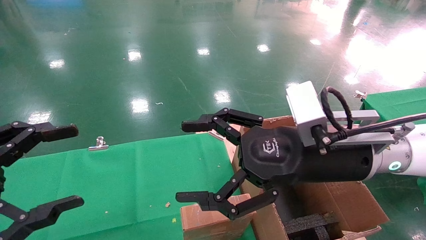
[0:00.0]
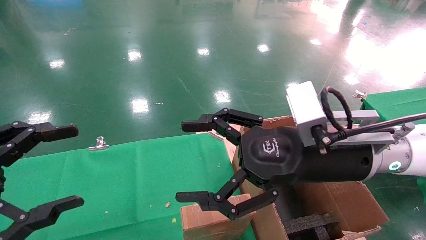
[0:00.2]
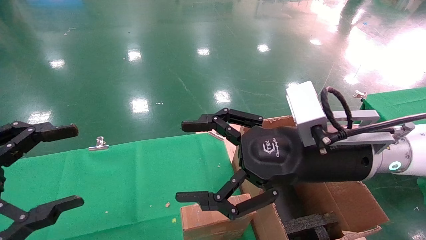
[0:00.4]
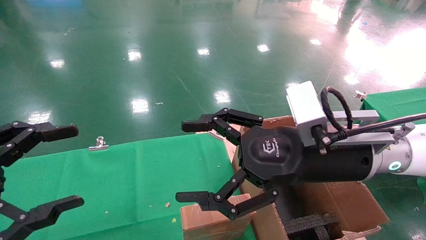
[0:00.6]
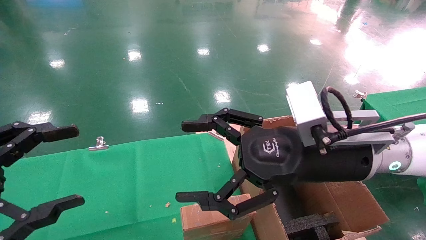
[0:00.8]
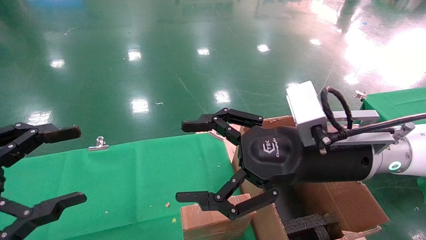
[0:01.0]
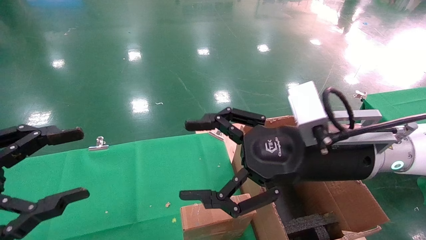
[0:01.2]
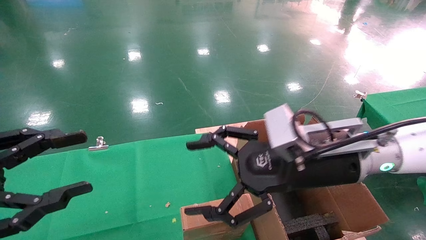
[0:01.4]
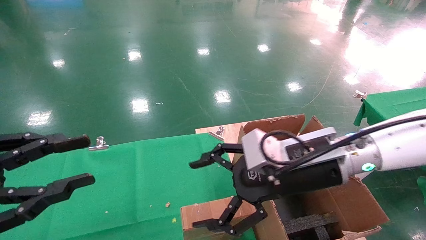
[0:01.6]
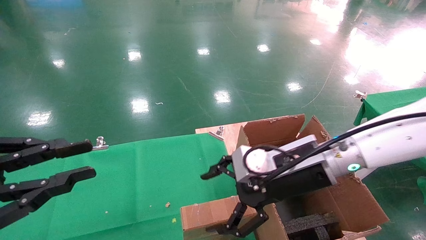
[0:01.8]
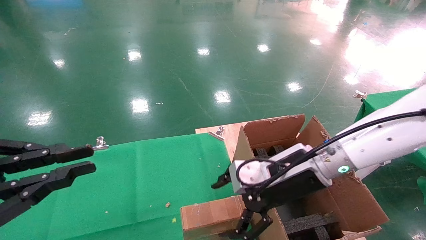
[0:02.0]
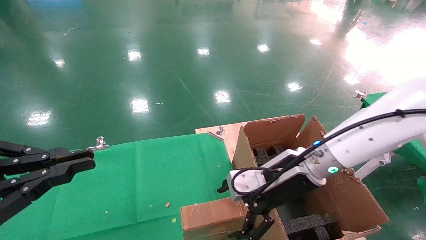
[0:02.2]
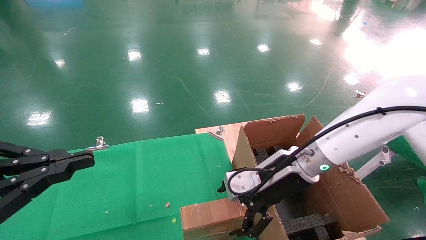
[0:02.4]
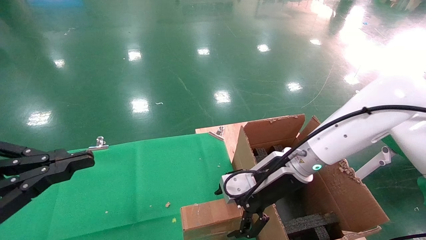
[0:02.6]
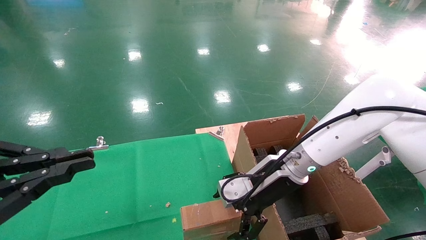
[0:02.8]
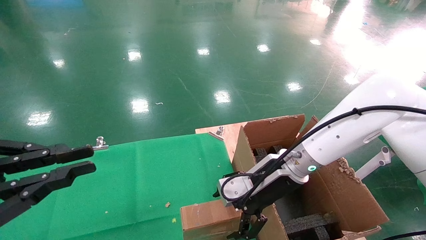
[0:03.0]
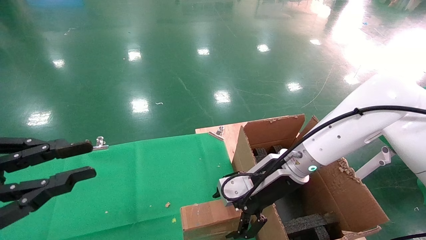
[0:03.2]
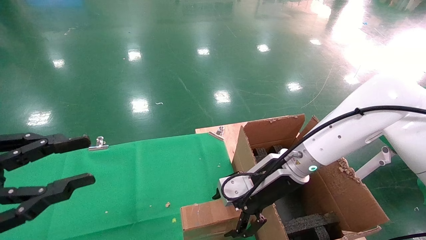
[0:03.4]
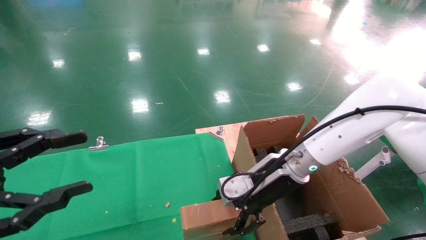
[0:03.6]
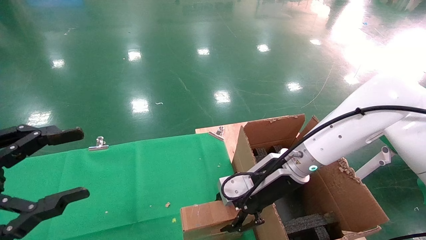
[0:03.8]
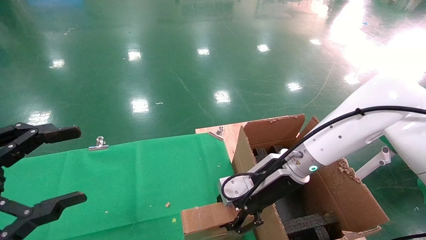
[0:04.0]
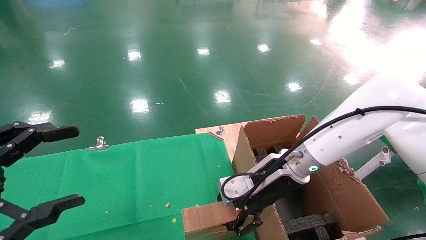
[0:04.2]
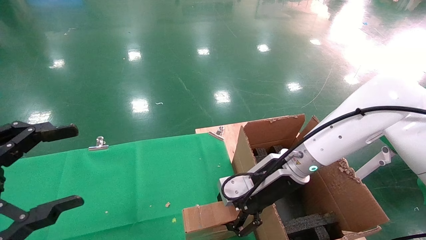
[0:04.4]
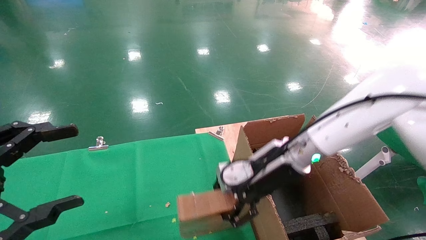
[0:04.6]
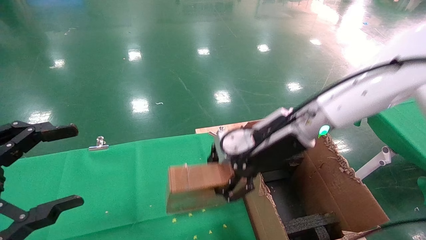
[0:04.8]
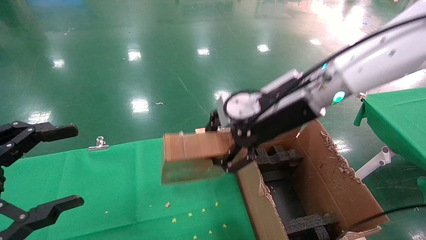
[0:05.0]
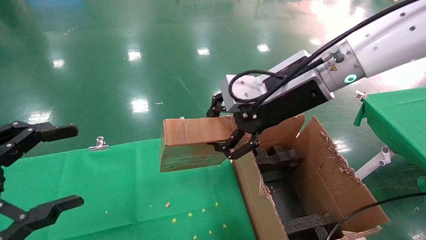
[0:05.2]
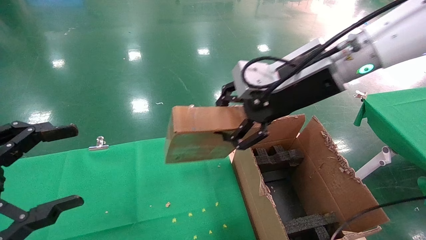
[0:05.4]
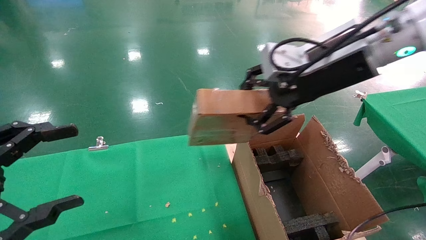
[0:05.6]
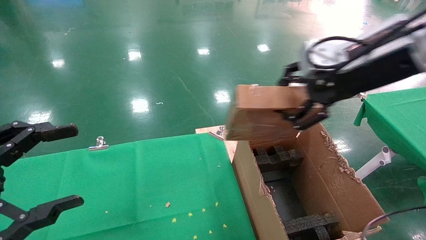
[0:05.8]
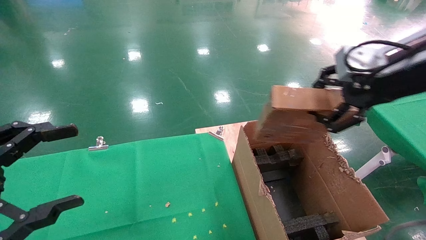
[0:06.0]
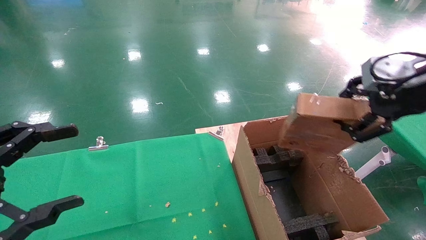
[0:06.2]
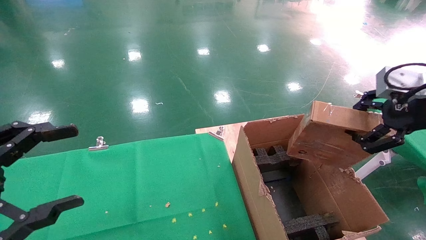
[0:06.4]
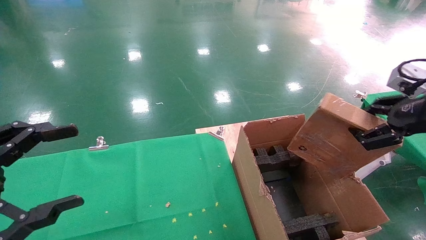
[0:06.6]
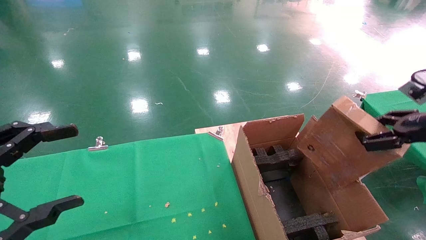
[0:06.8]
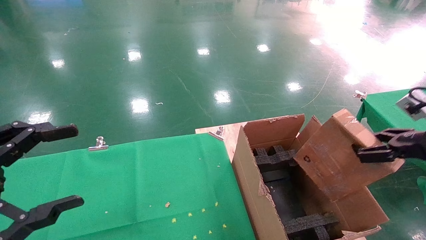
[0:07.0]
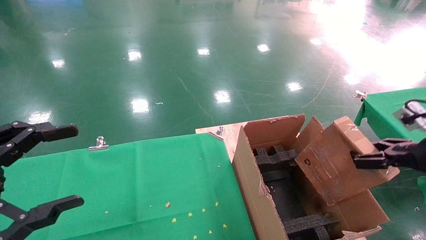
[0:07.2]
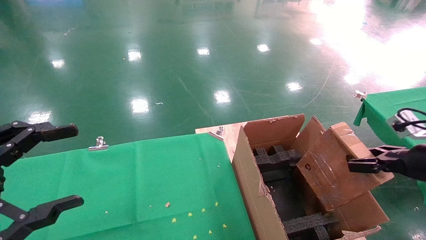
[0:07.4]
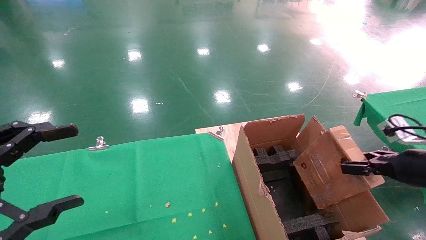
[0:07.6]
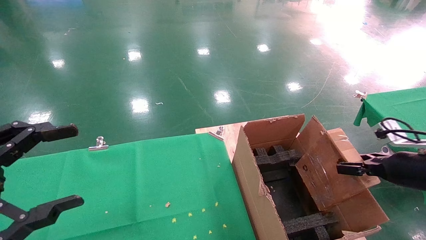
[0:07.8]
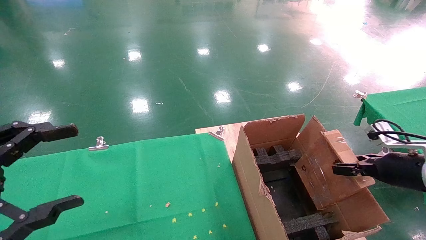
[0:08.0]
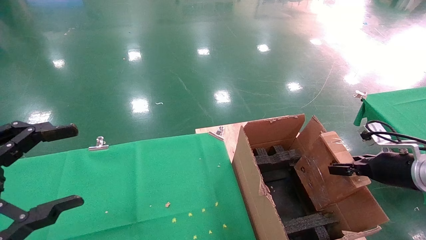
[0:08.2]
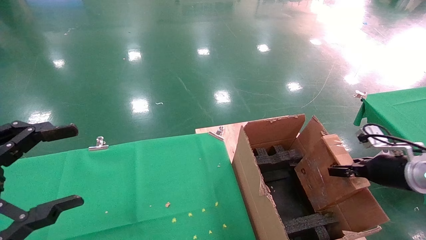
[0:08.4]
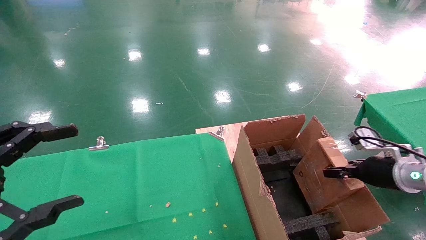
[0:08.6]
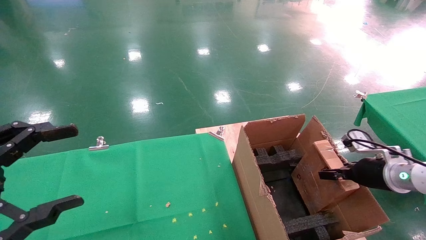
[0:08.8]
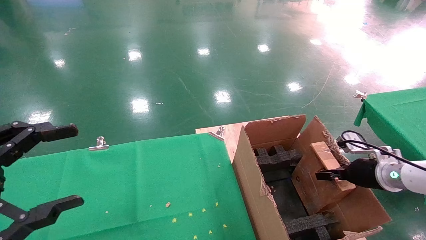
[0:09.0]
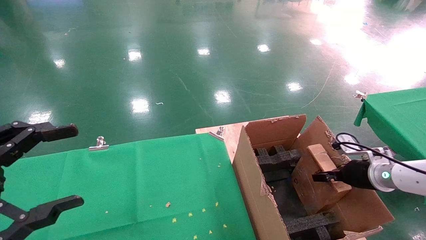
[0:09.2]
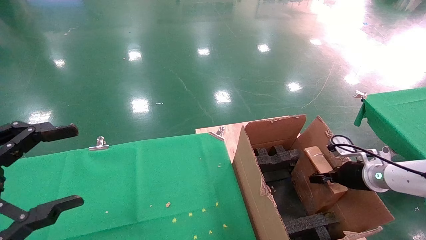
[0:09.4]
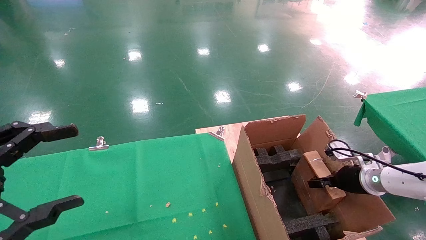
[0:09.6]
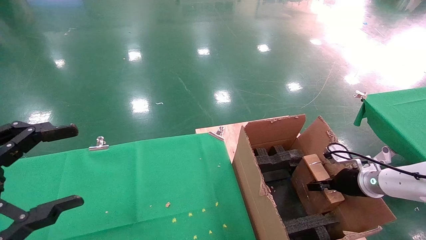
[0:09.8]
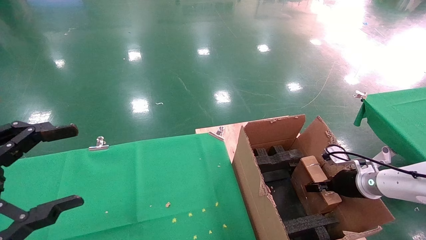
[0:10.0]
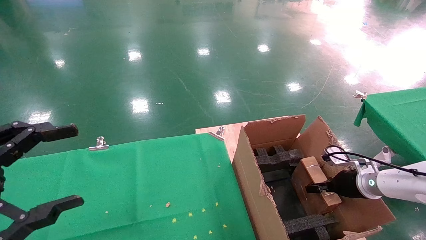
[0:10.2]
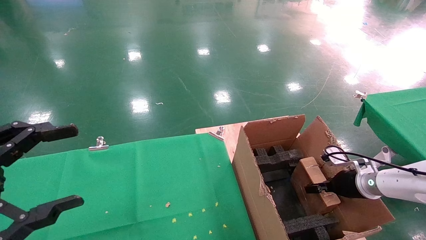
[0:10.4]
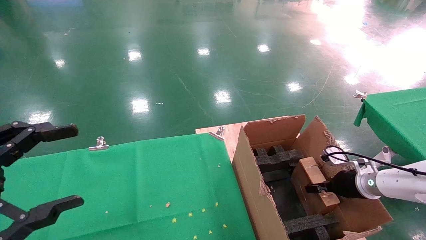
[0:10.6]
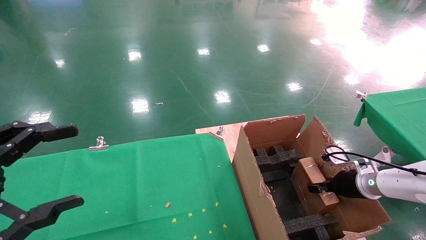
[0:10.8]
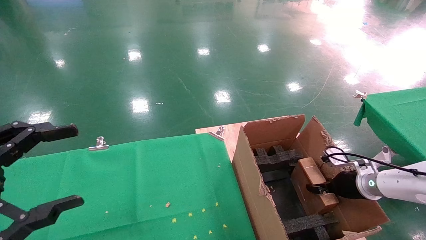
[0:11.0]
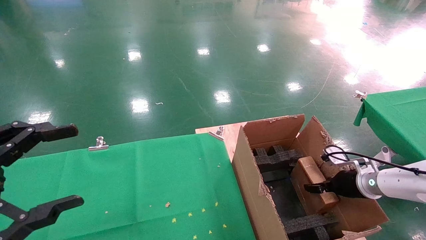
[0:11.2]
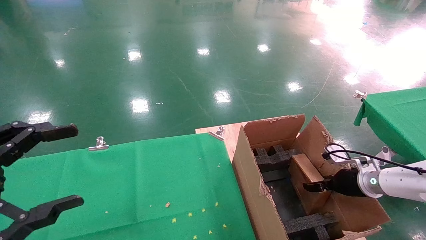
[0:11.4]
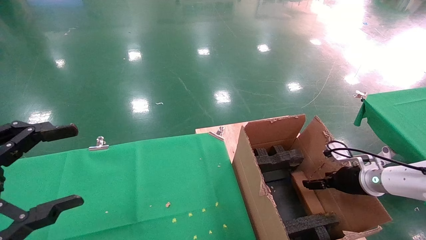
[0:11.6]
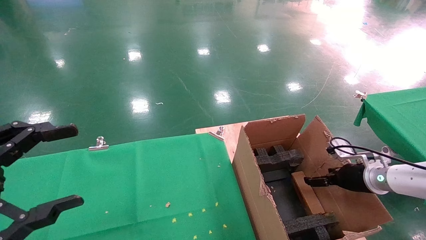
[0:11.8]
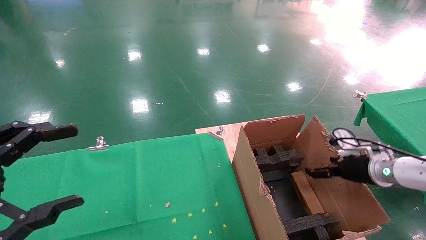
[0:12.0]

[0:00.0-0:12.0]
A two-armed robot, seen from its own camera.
Task of the whole recording: using a robotic arm to pick up a cardboard box and palace it the carton.
Step, 0:01.6 to 0:04.0: Pick up the mouse and the power cord paper box.
0:00.0 to 0:01.6: The left gripper closes its fingers.
0:01.6 to 0:03.0: The right gripper travels forward and downward by about 10 cm. Meanwhile the left gripper closes up.
0:03.0 to 0:04.4: The left gripper opens, while the right gripper closes up.
0:04.4 to 0:06.0: The right gripper heads to the right, upward and backward, covering about 30 cm.
0:06.0 to 0:07.6: The right gripper travels downward and to the right by approximately 20 cm.
0:07.6 to 0:09.0: The right gripper heads forward and downward, covering approximately 10 cm.
0:09.0 to 0:10.4: The right gripper is displaced downward by approximately 5 cm.
0:10.4 to 0:12.0: The right gripper is displaced upward by approximately 5 cm, and opens.

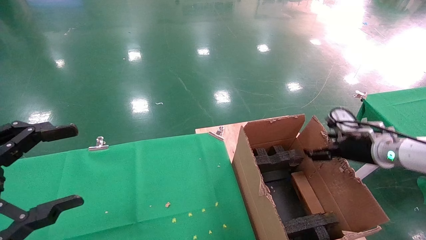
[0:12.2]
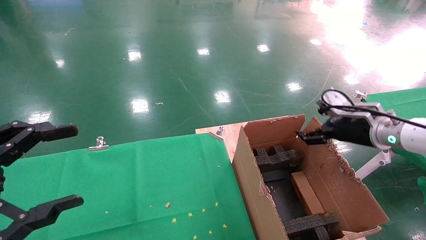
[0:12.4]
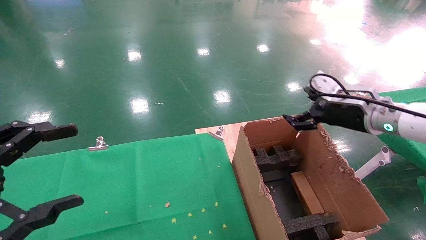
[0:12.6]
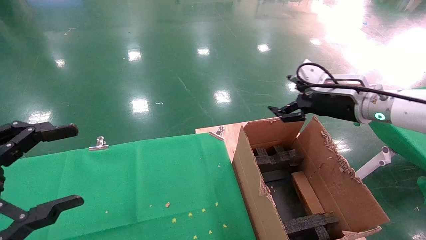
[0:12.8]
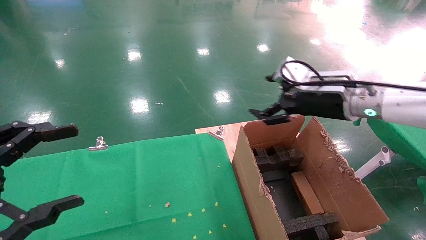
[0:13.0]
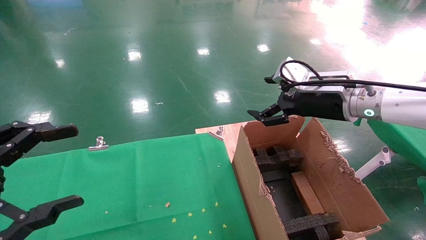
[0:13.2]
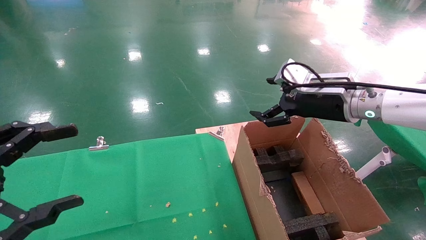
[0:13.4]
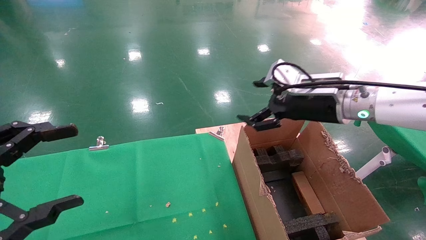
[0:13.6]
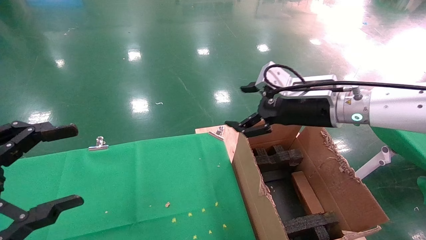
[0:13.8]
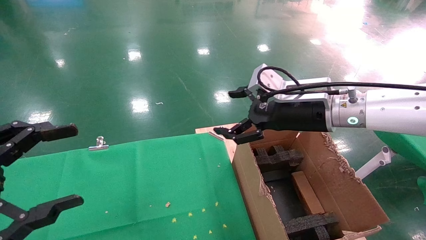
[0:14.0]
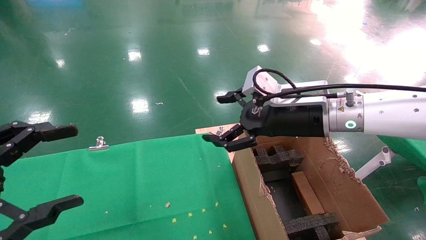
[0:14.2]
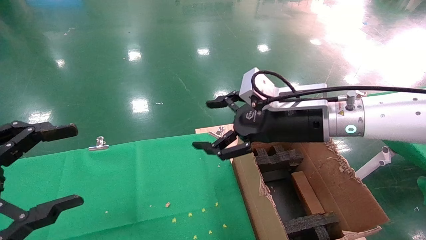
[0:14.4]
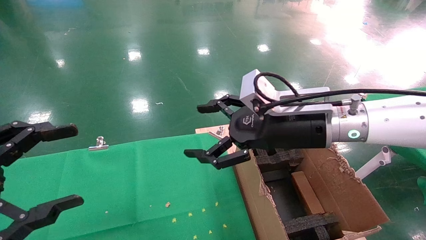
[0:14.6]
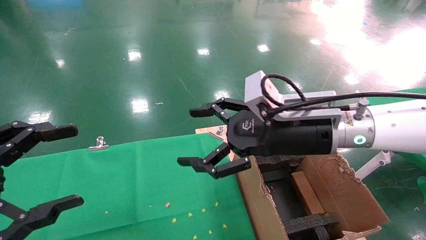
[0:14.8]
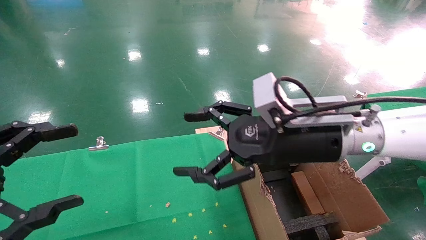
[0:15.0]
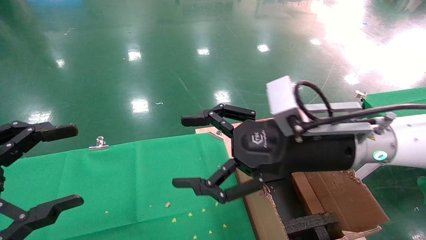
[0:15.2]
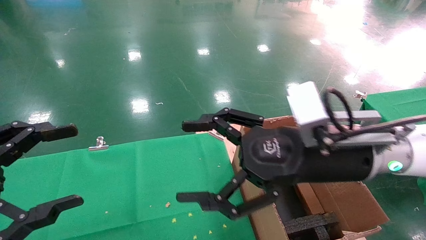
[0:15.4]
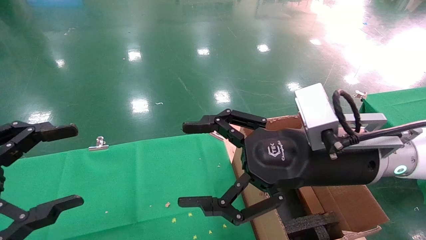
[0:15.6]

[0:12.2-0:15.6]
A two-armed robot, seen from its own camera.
Task of the whole recording: using a robotic arm to pick up a cardboard box and palace it the carton.
0:12.2 to 0:13.8: The right gripper goes about 20 cm to the left and upward.
0:13.8 to 0:15.6: The right gripper goes some 10 cm backward.

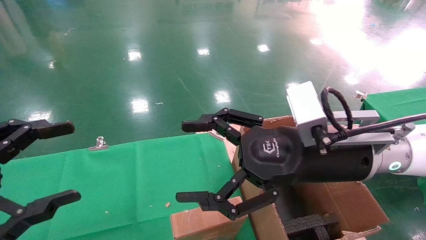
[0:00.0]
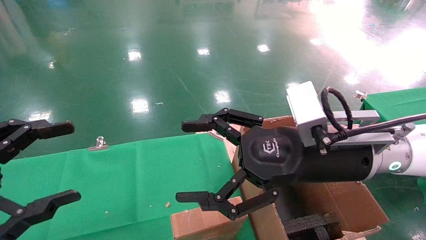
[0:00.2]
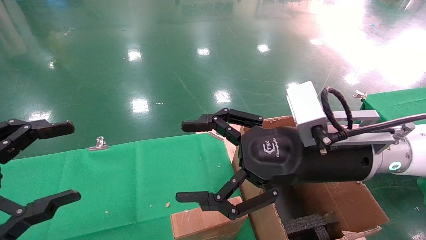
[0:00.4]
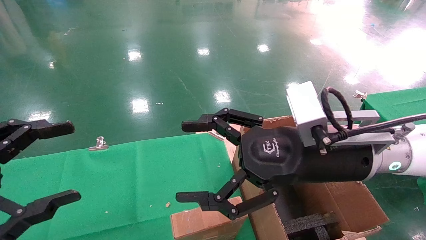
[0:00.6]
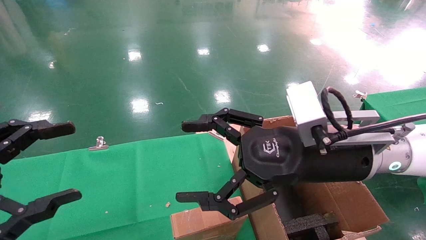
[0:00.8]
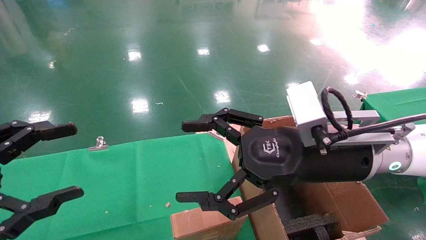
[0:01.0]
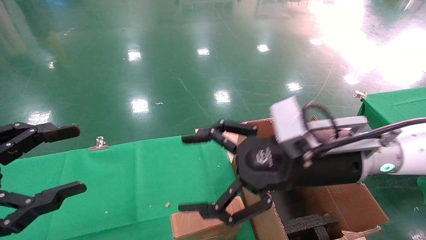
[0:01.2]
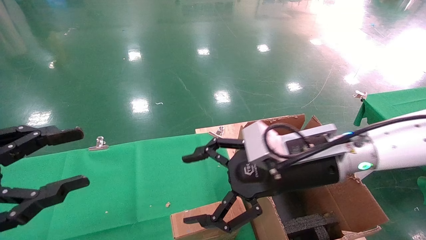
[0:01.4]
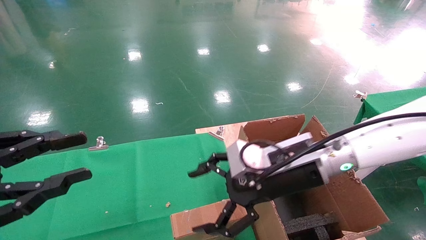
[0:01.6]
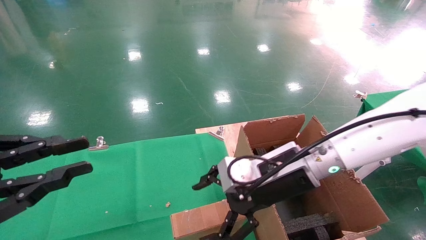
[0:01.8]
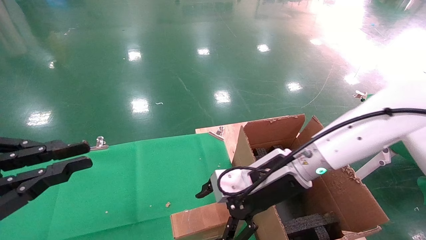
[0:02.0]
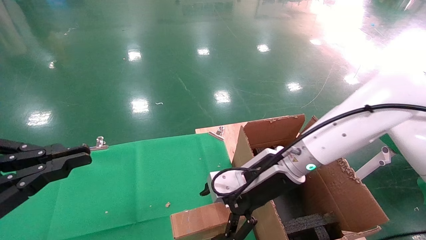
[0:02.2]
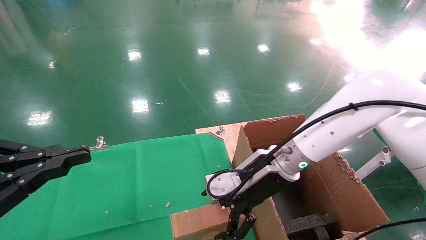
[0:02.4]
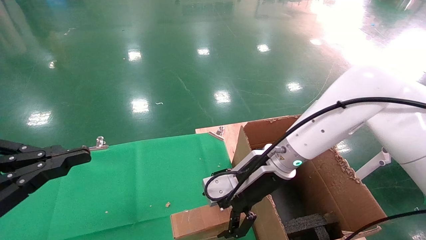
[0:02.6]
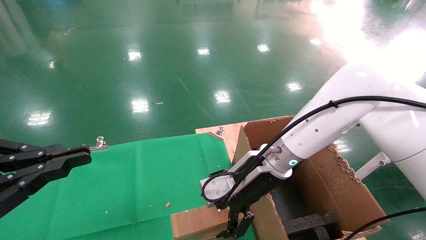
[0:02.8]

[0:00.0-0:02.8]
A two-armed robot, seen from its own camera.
Task of the whole recording: using a robotic arm to pick up a cardboard box and palace it the carton.
0:00.0 to 0:01.4: The grippers make only small movements.
0:01.4 to 0:02.8: The right gripper goes about 5 cm forward. Meanwhile the left gripper closes its fingers.
